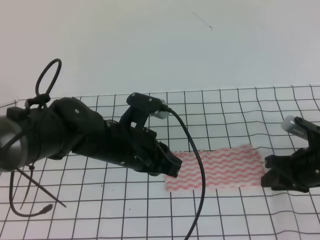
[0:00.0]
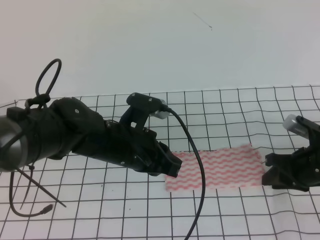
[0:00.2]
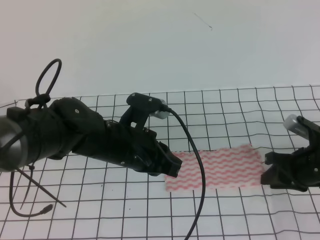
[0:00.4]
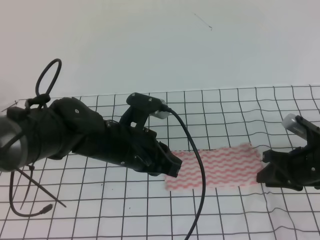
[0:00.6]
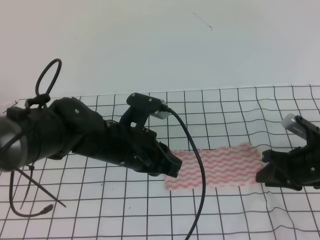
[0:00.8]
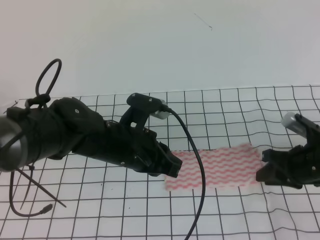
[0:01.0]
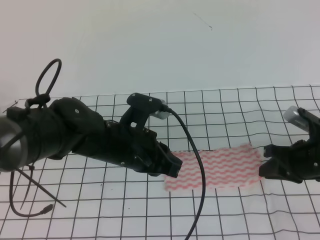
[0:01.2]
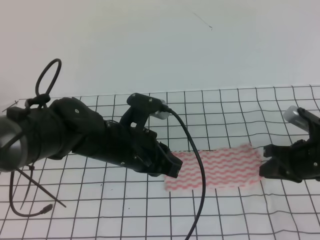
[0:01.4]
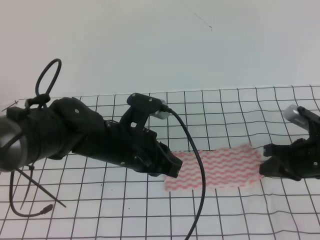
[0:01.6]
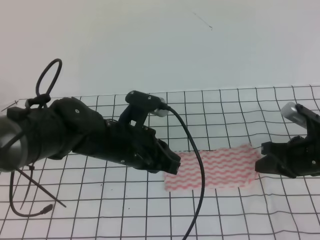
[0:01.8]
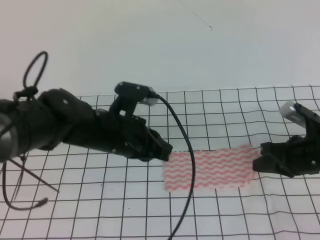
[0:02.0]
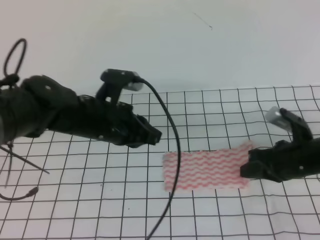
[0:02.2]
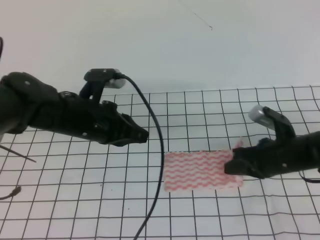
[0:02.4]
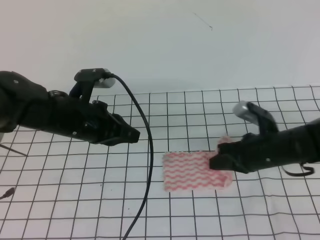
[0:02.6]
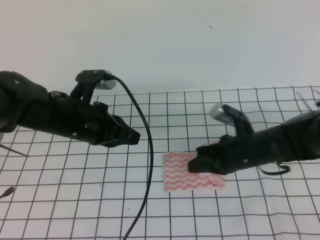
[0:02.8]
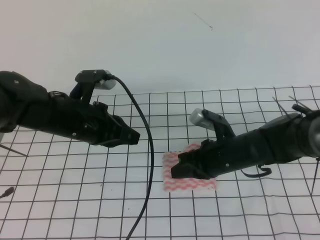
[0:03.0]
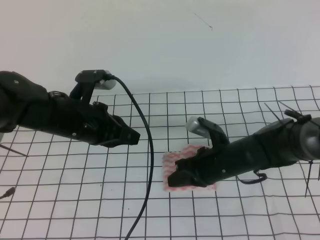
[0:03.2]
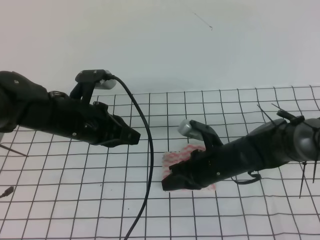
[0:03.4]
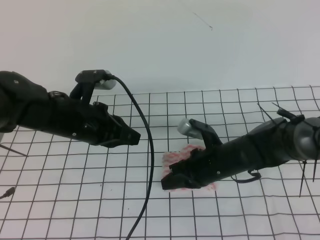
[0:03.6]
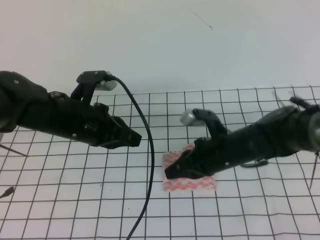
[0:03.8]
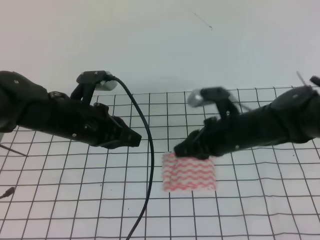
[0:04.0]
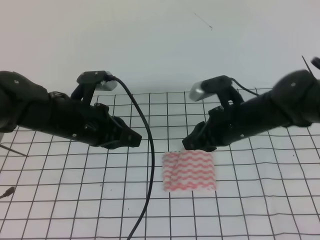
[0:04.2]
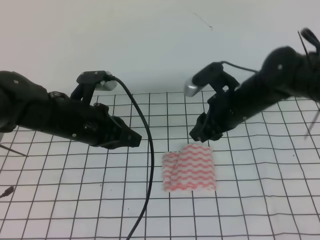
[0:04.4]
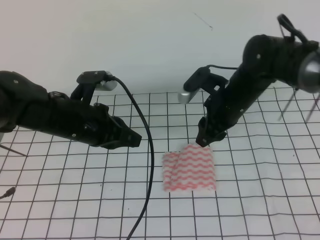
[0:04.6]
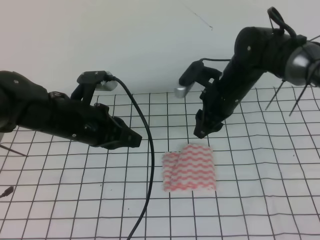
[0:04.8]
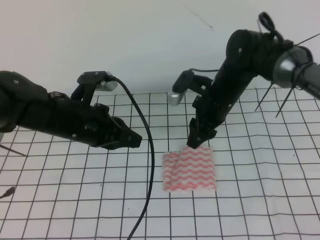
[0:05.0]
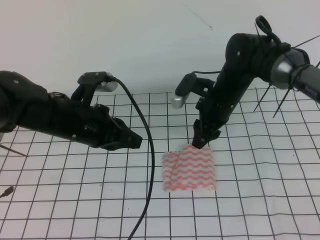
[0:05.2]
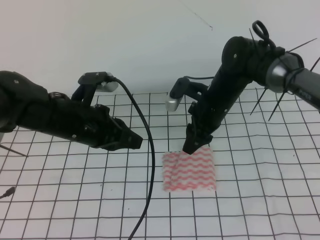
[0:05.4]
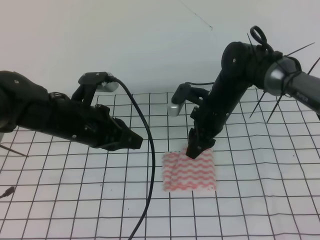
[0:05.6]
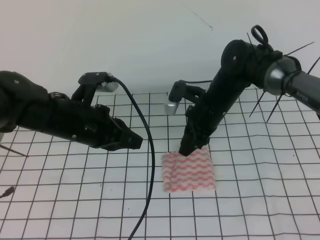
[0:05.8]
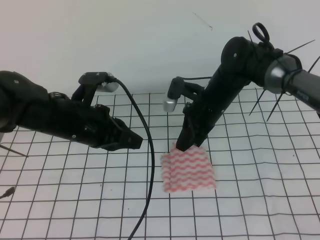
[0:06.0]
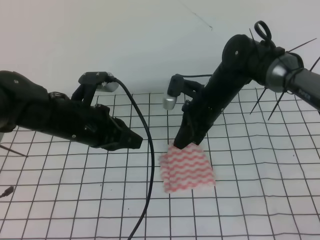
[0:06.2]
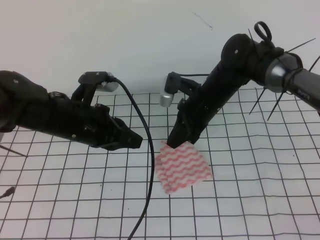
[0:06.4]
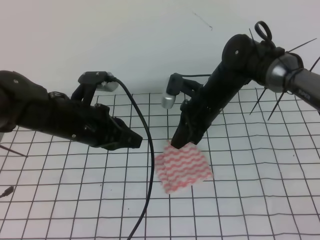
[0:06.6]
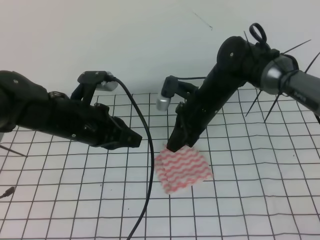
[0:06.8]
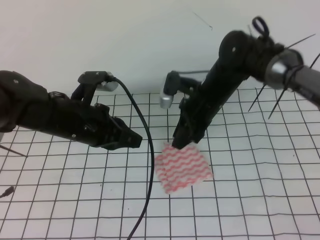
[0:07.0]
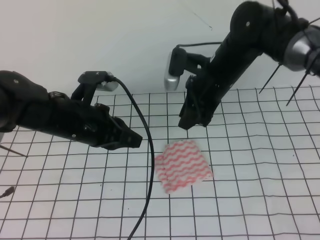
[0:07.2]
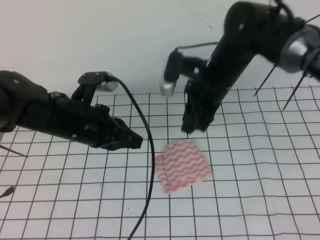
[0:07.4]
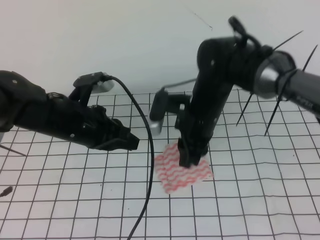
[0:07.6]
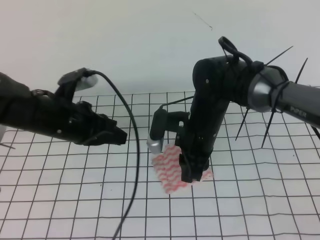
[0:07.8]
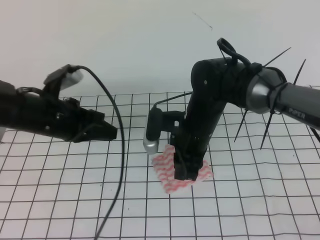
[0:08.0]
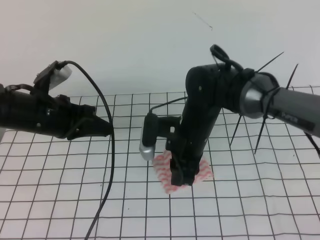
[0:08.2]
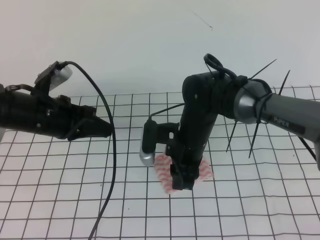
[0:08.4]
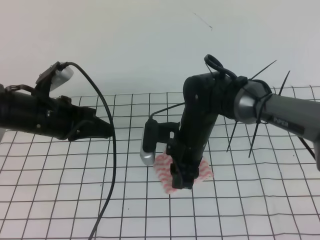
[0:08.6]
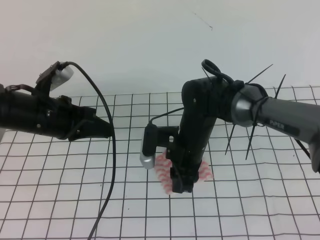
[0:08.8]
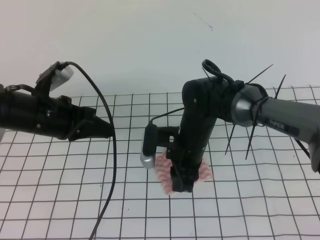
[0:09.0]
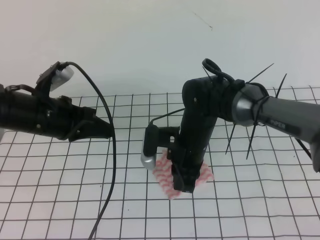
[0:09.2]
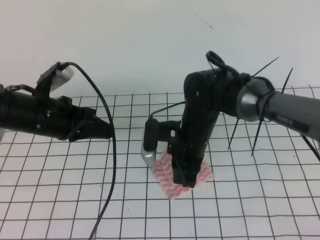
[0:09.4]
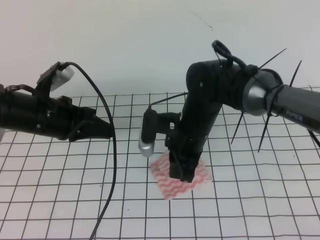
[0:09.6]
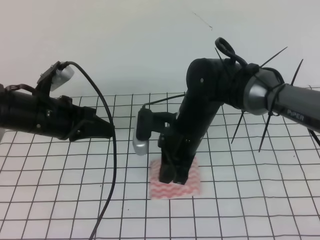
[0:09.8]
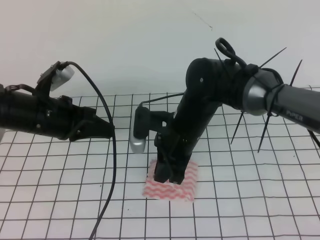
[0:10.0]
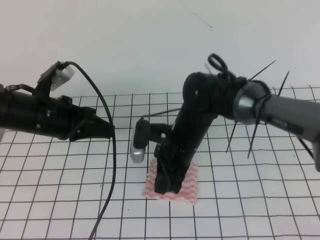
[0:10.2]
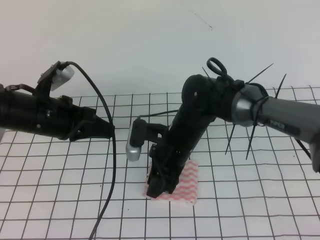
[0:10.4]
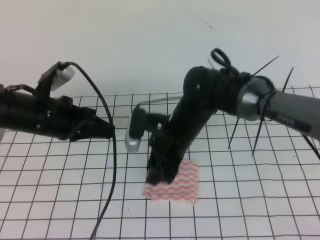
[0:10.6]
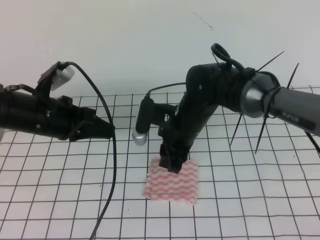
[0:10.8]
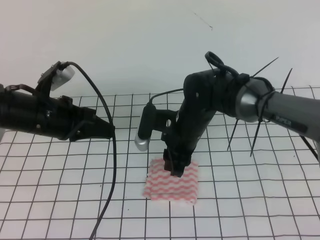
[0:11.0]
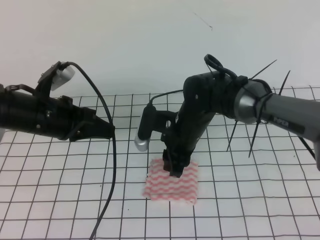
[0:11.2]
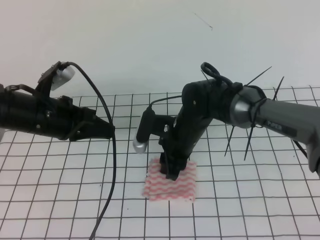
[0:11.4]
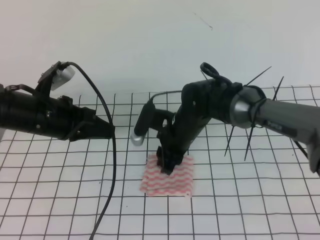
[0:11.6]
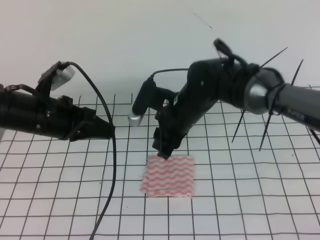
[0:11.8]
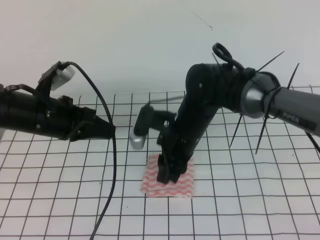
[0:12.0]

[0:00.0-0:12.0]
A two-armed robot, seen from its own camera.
Step, 0:00.0 to 0:06.6: Tidy up the towels.
0:00.0 to 0:01.6: The right gripper closes its fingers.
0:01.6 to 0:03.0: The right gripper is displaced to the left by approximately 15 cm. Meanwhile the left gripper heads to the left, covering approximately 5 cm.
0:03.0 to 0:04.4: The right gripper goes some 10 cm upward, and opens.
0:04.4 to 0:06.0: The right gripper changes place by some 5 cm, and closes up.
0:06.0 to 0:07.6: The right gripper ends up about 5 cm from where it was, and opens.
0:07.6 to 0:09.0: The left gripper shifts by roughly 5 cm. Meanwhile the right gripper shifts approximately 5 cm downward.
0:09.0 to 0:10.4: The right gripper closes and opens again.

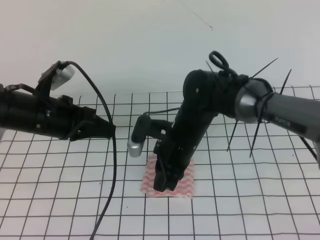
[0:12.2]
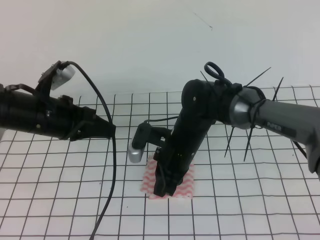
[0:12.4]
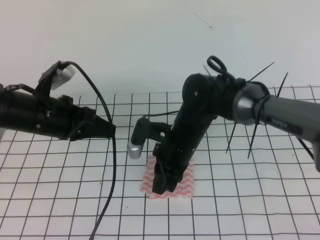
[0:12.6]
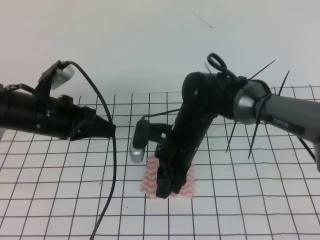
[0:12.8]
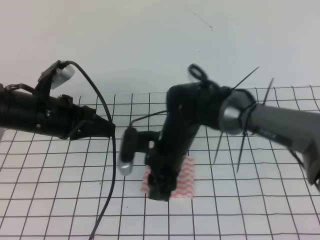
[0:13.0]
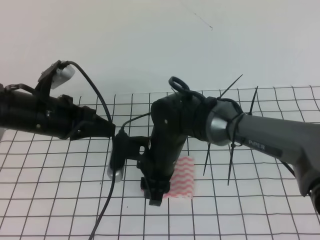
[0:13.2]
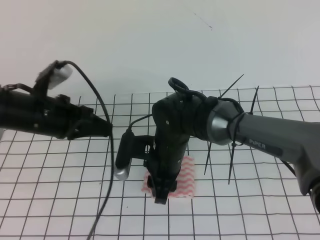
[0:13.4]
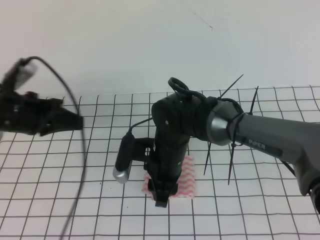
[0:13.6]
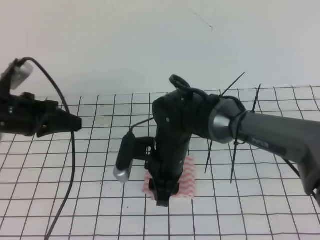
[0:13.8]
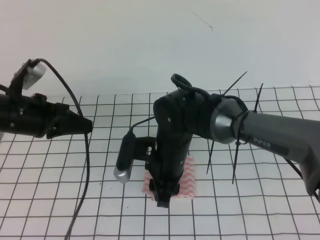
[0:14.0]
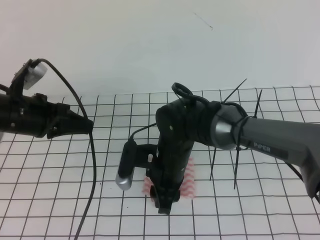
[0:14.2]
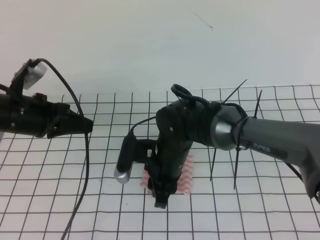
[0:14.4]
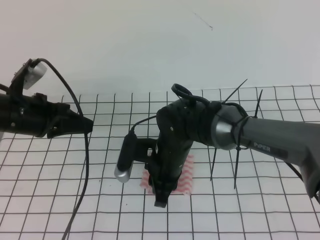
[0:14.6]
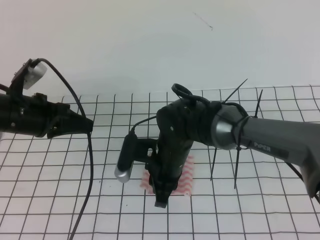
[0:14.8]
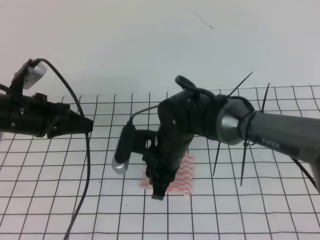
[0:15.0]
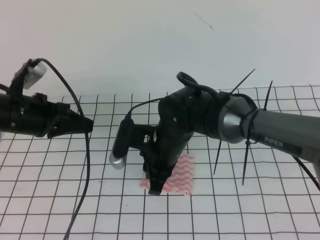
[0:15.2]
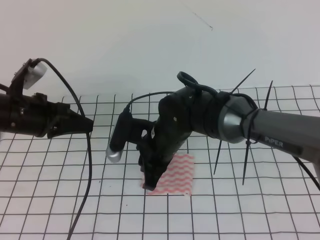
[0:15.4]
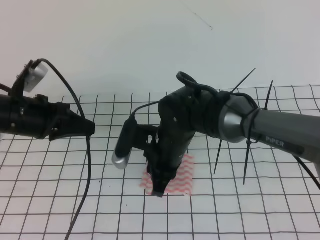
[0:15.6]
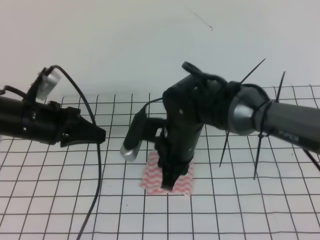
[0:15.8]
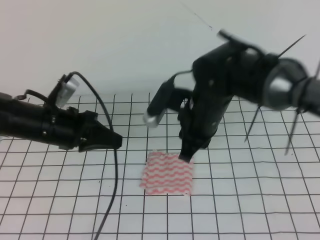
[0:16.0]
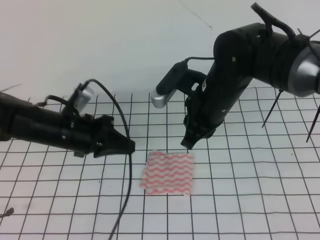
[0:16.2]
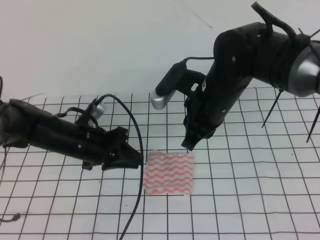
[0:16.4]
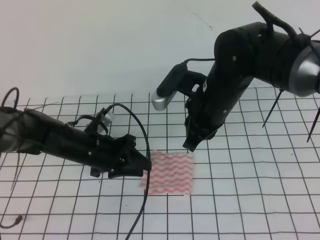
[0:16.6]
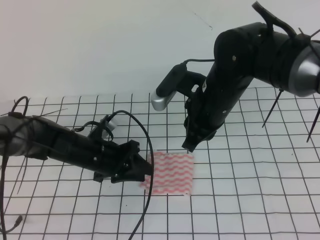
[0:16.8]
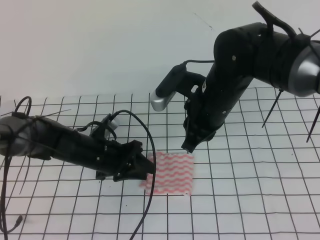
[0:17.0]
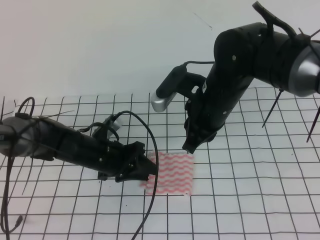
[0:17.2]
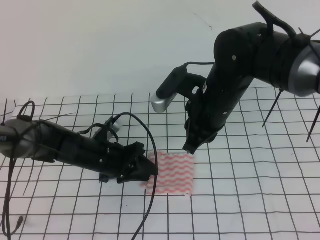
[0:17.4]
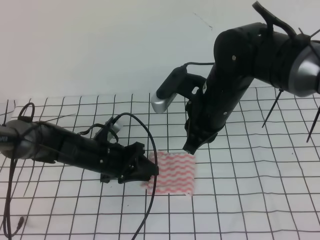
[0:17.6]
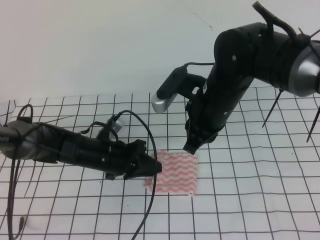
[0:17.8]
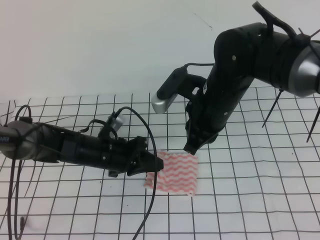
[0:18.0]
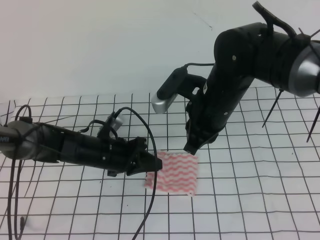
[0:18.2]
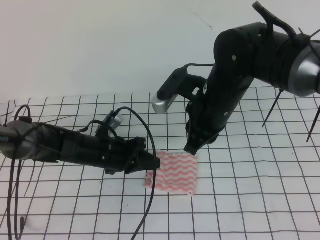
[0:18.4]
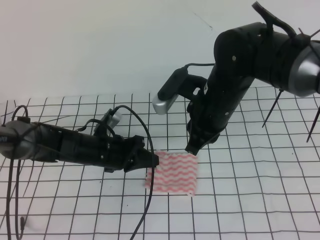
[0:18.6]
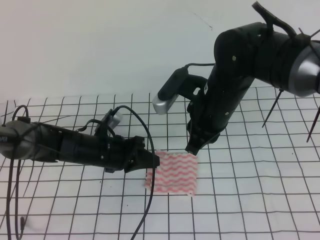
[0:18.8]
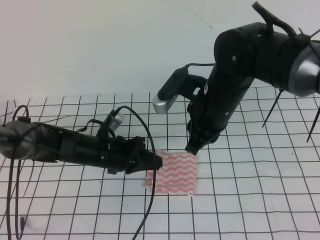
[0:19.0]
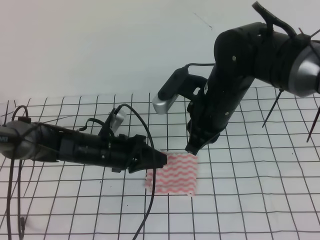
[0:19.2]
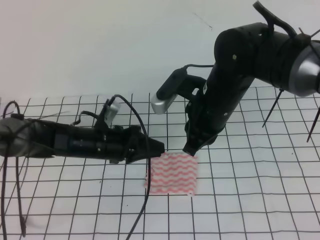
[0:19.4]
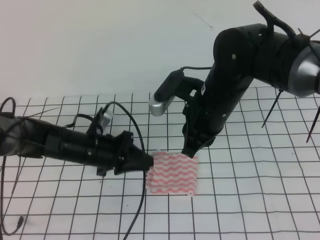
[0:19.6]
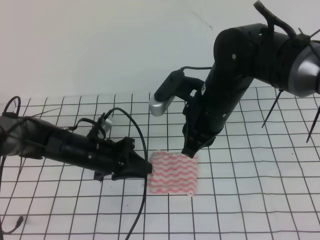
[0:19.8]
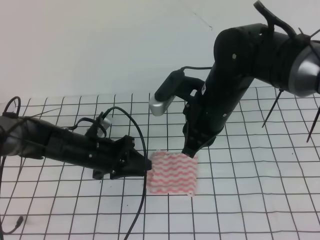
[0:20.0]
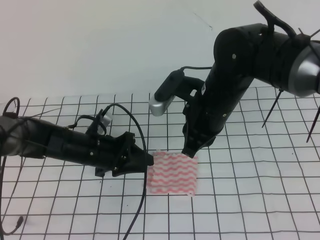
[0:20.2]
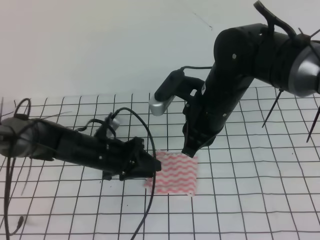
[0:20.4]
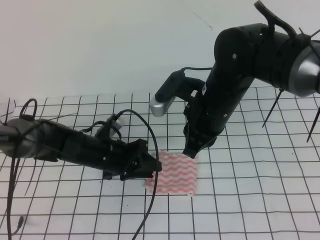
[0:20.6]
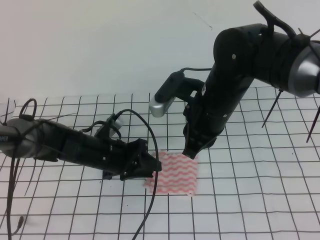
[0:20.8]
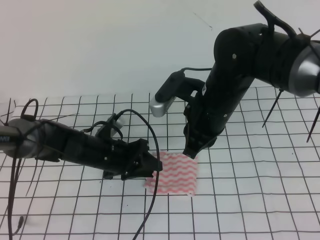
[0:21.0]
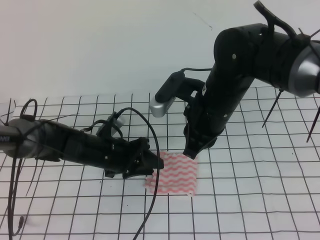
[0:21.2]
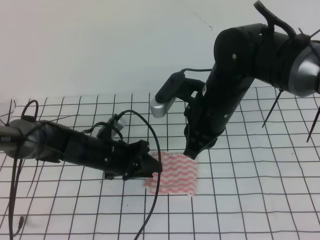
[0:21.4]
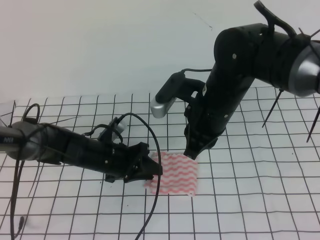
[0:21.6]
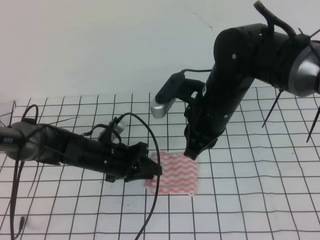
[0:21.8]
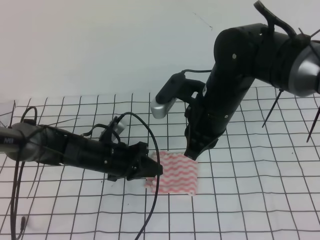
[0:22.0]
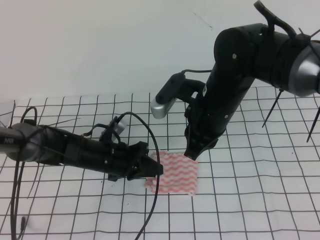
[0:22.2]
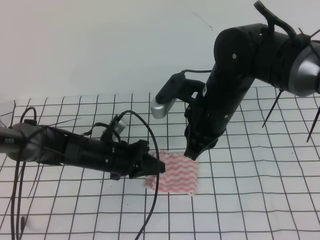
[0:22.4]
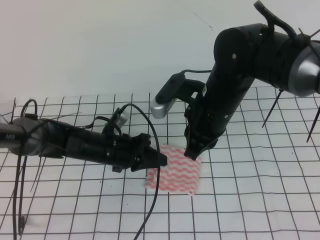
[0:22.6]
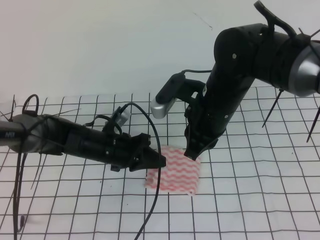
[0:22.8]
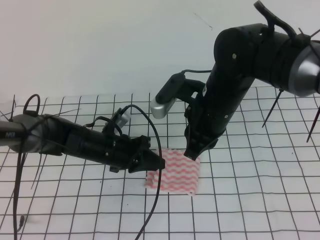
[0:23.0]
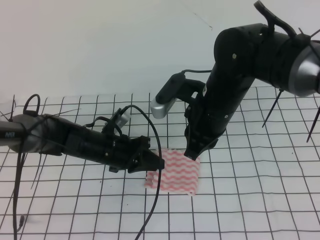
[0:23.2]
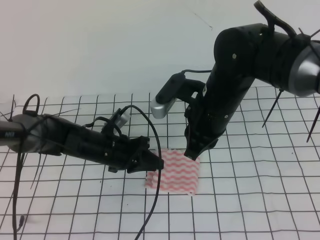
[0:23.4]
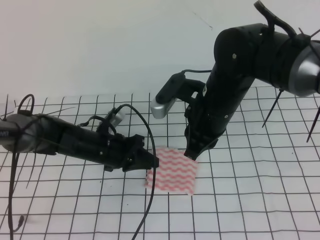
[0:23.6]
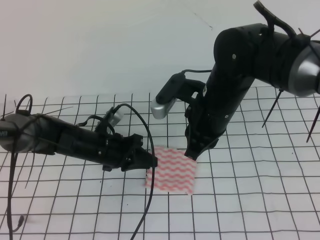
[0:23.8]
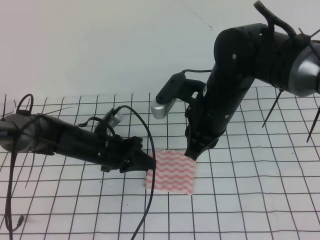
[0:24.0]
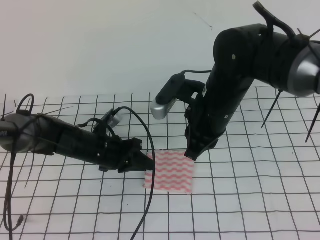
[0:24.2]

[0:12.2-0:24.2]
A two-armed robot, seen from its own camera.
0:12.2 to 0:13.8: The left gripper goes roughly 5 cm to the left. The right gripper opens up.
0:13.8 to 0:15.2: The right gripper closes.
0:15.2 to 0:16.6: The left gripper goes about 15 cm downward and to the right, and opens. Meanwhile the right gripper heads to the right and upward, covering roughly 10 cm.
0:16.6 to 0:18.2: The left gripper closes its fingers.
0:18.2 to 0:19.8: The left gripper opens up.
0:19.8 to 0:21.2: There are only small adjustments of the grippers.
0:21.2 to 0:22.6: The left gripper closes.
0:22.6 to 0:24.2: There are only small adjustments of the grippers.
